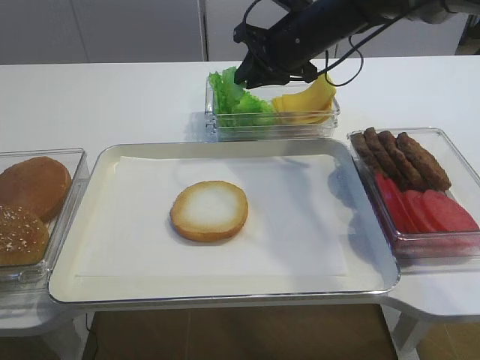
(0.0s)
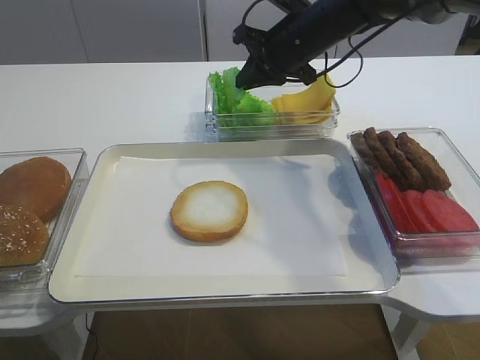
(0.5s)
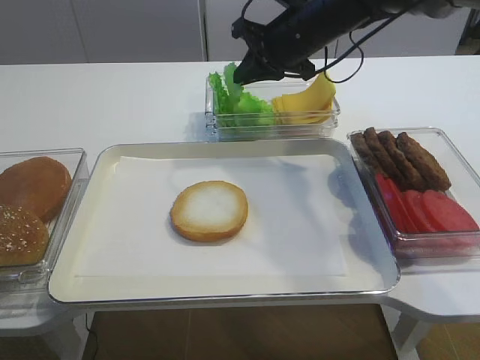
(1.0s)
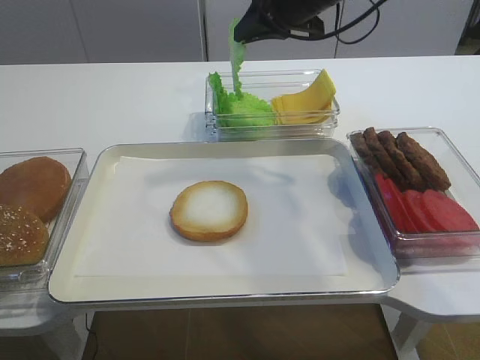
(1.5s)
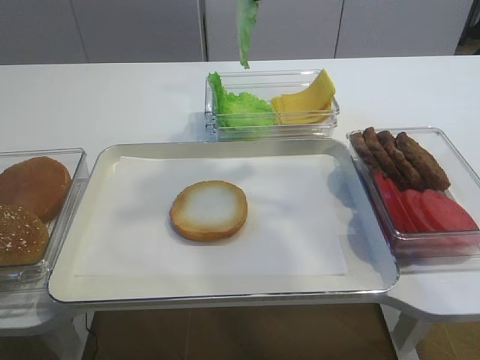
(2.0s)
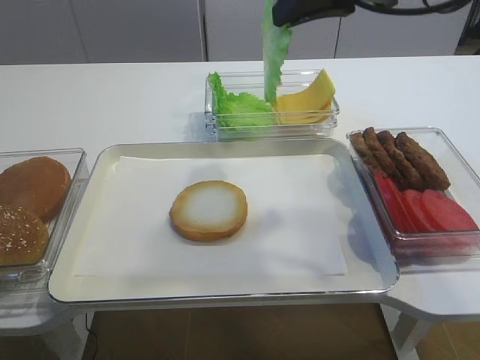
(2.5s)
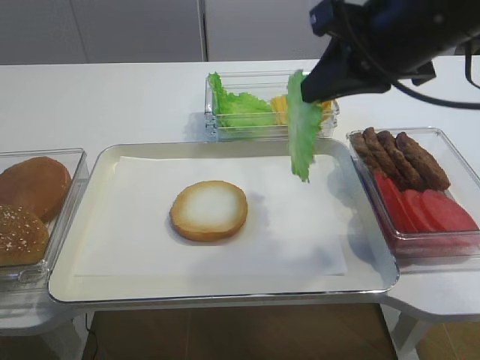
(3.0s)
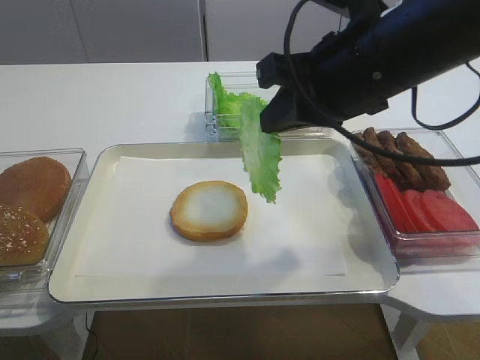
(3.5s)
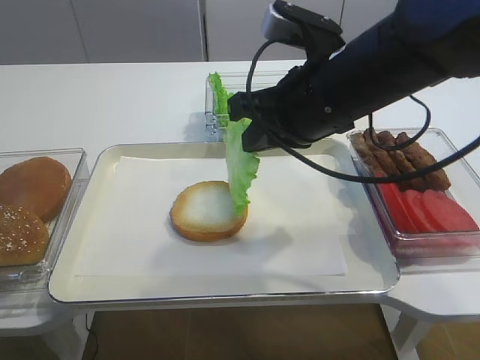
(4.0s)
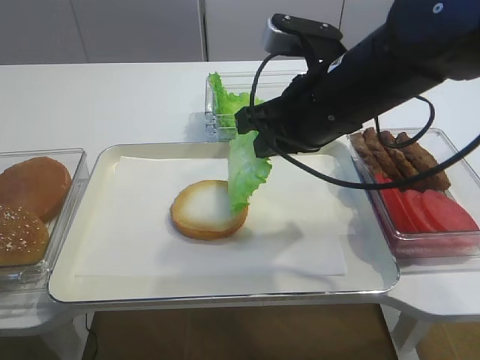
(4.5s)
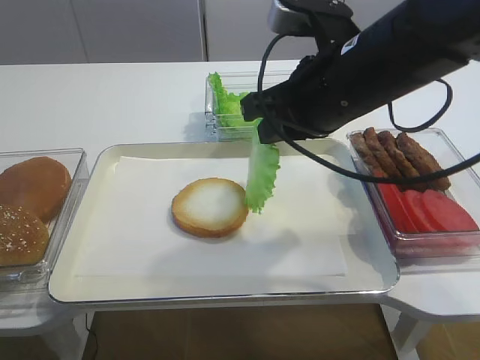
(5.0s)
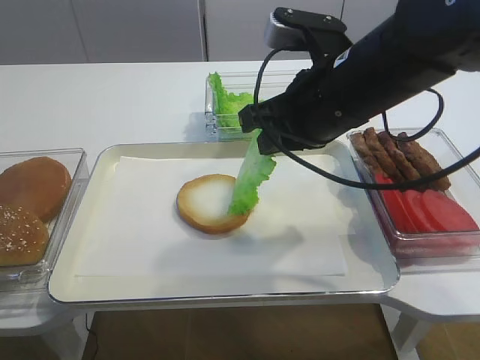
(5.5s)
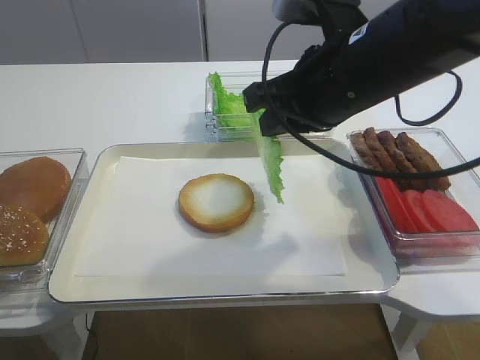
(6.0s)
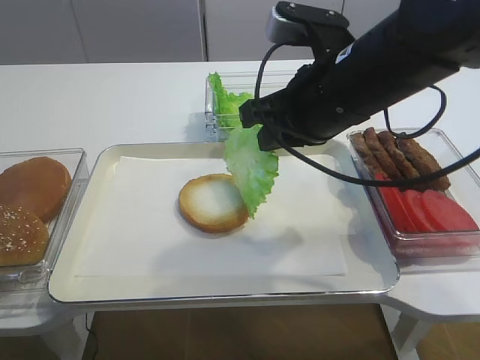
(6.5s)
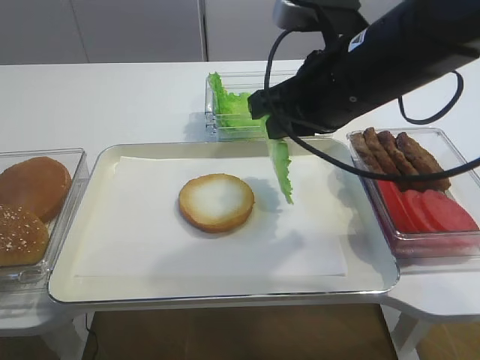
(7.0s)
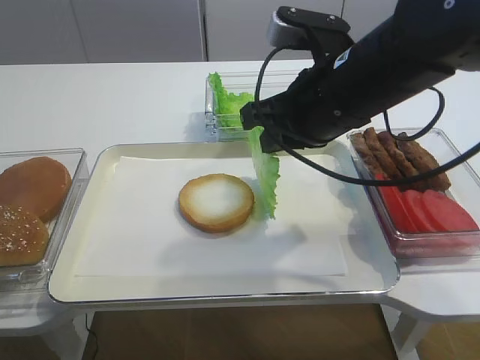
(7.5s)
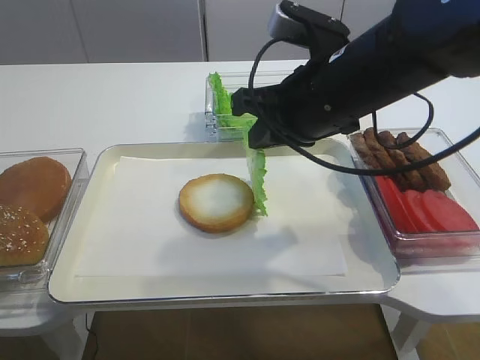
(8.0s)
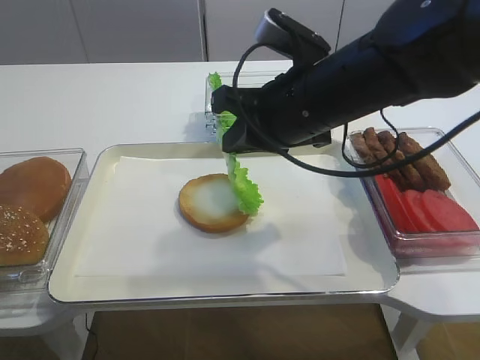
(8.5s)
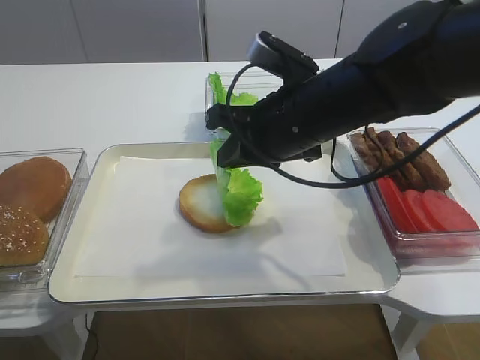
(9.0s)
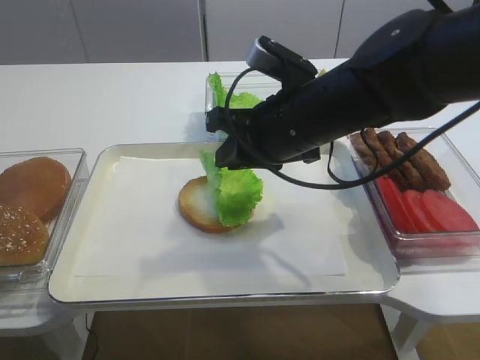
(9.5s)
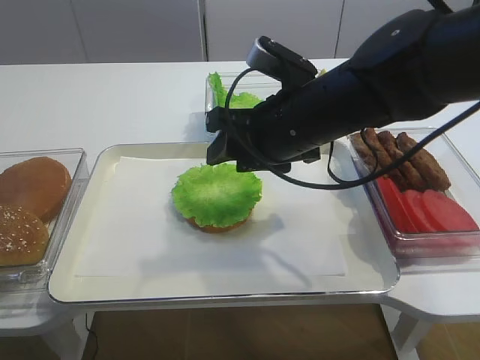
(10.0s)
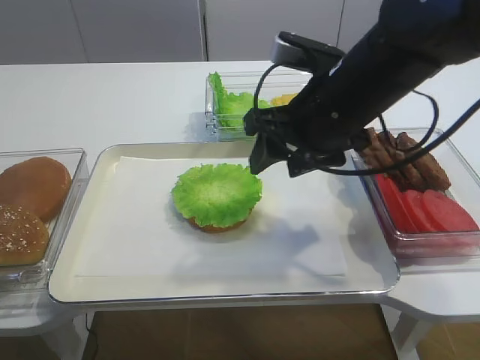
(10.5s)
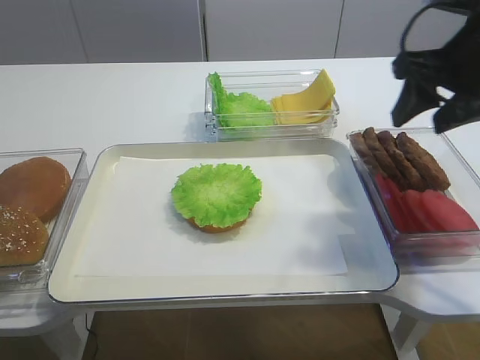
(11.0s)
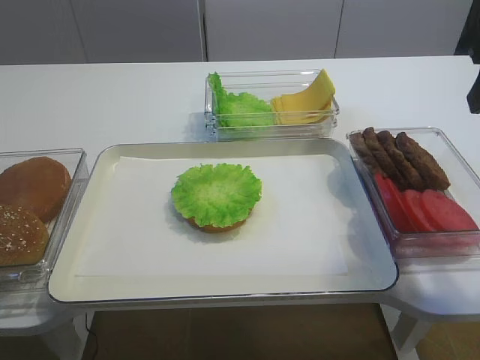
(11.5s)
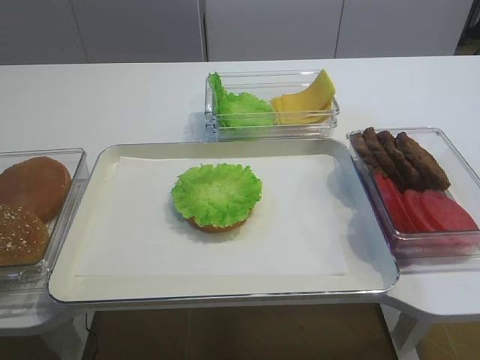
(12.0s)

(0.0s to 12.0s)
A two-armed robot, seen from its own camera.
Step, 1.5s - 10.0s: Place the lettuce leaf on the bread slice with the right gripper.
0.0s - 2.0s: The right gripper moves upward and backward, approximately 15 cm, and closes up.
2.0s - 4.0s: The right gripper heads backward and downward, covering approximately 15 cm.
4.0s - 8.0s: The grippers make only small movements.
8.0s - 10.0s: The right gripper opens.
10.0s - 12.0s: The right gripper shifts some 25 cm to the right, backward and upward.

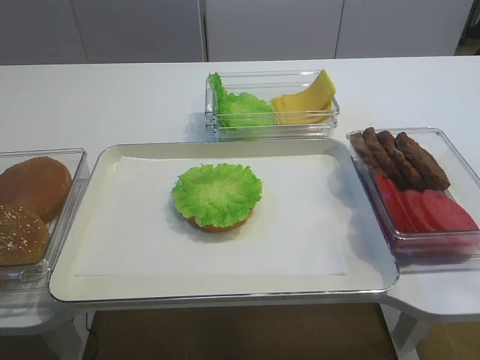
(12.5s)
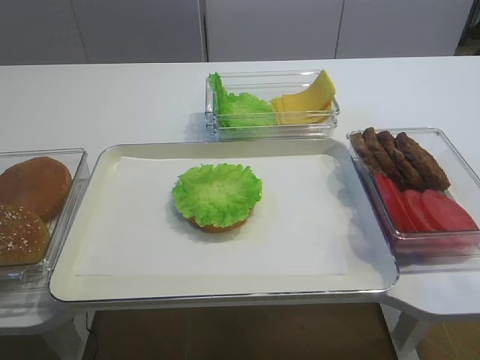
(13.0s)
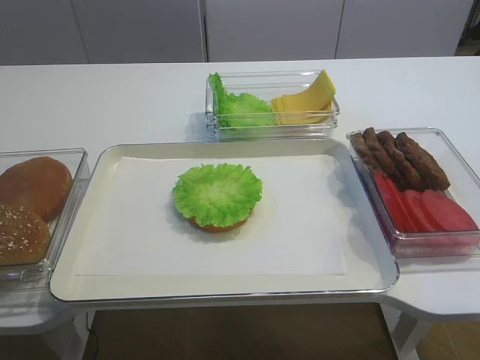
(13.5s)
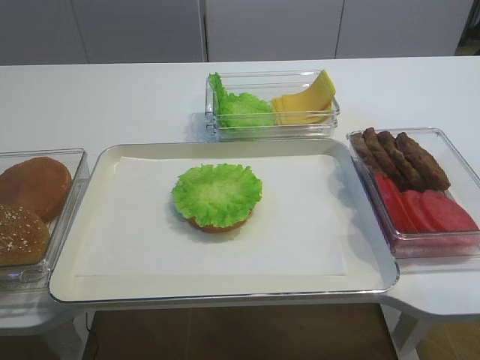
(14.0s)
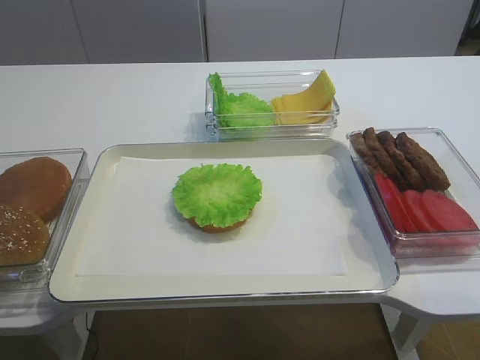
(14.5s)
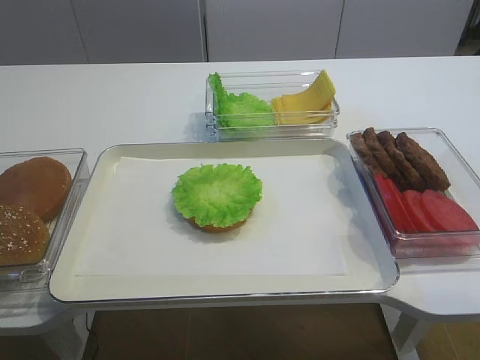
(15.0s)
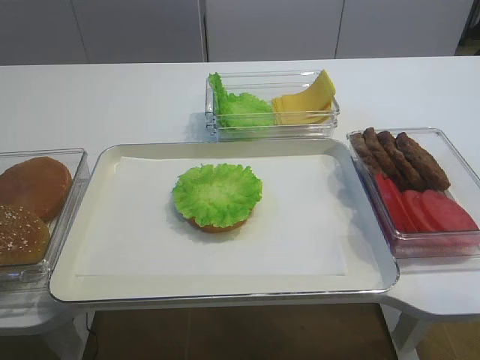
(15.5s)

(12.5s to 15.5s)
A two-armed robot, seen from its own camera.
12.5s - 14.0s: The right gripper heads downward and backward, covering about 10 cm.
14.0s - 15.5s: The two grippers keep their place.

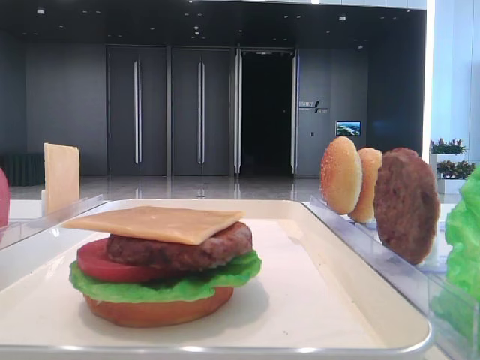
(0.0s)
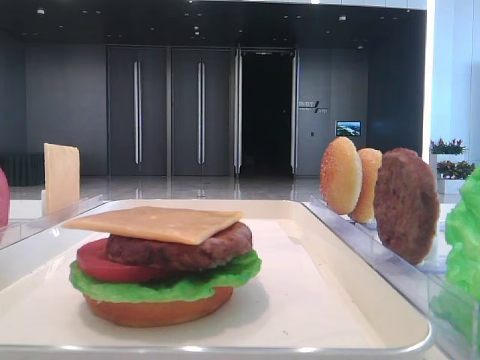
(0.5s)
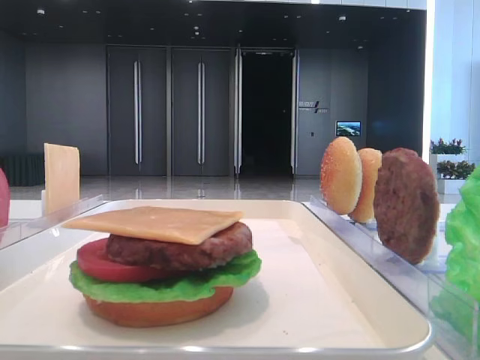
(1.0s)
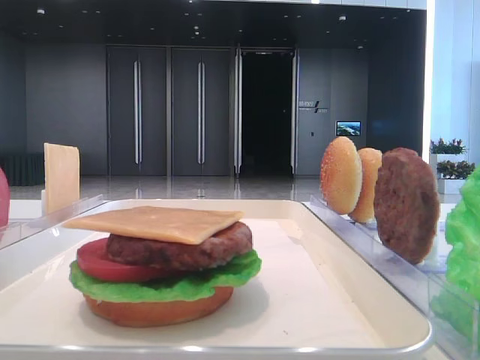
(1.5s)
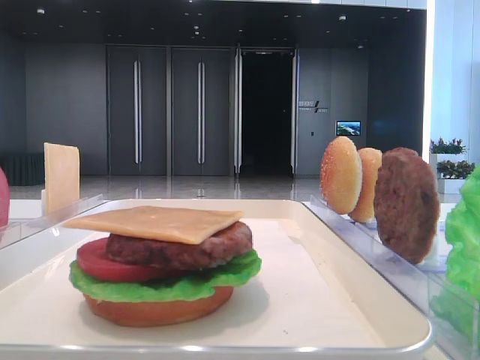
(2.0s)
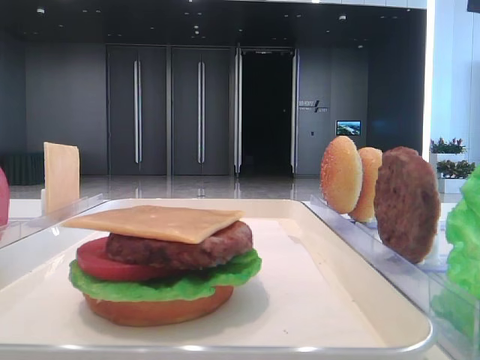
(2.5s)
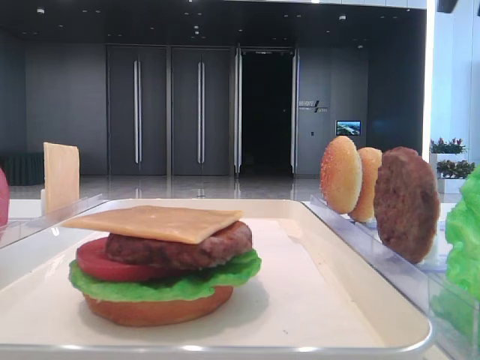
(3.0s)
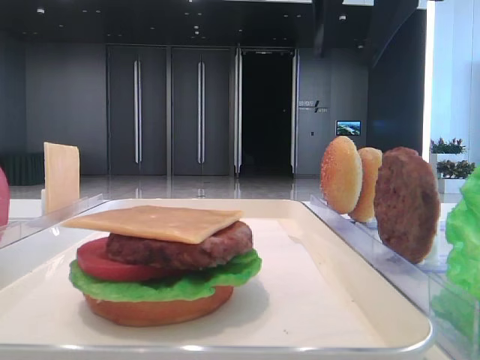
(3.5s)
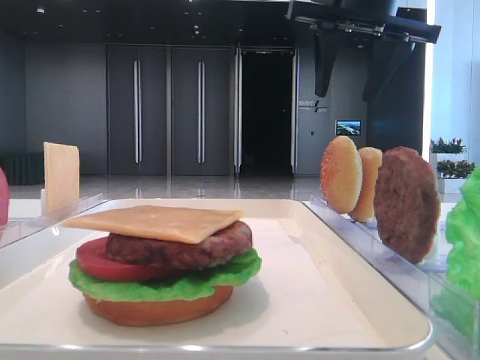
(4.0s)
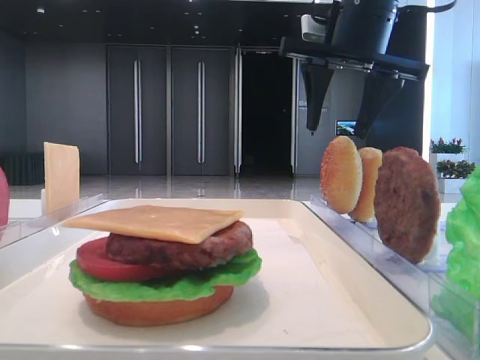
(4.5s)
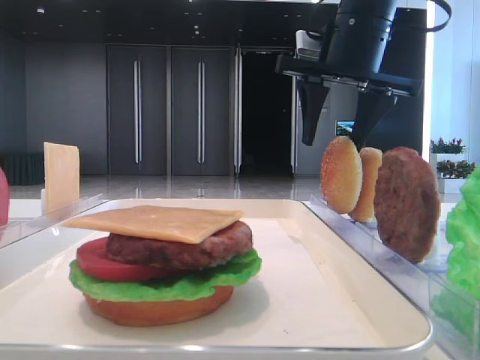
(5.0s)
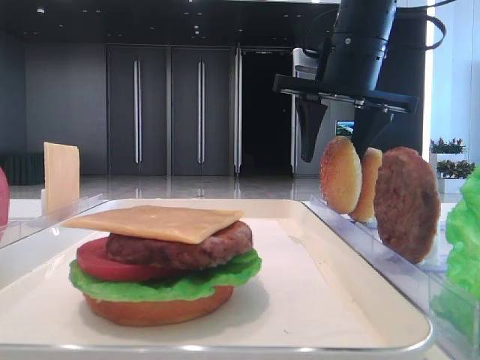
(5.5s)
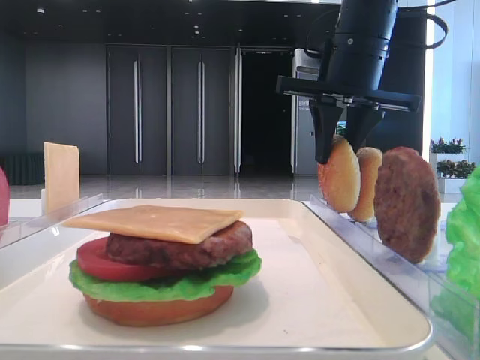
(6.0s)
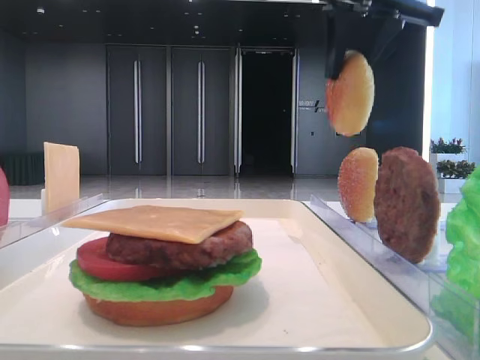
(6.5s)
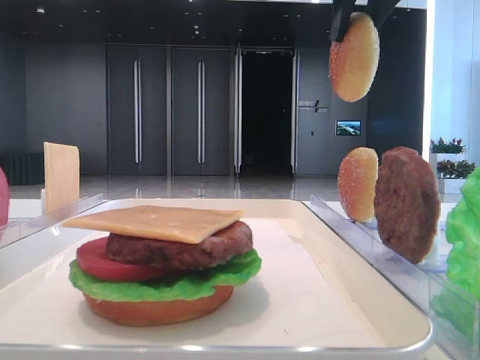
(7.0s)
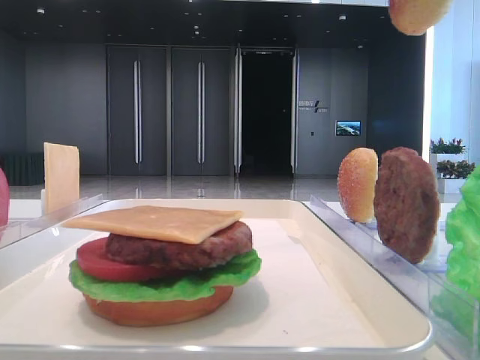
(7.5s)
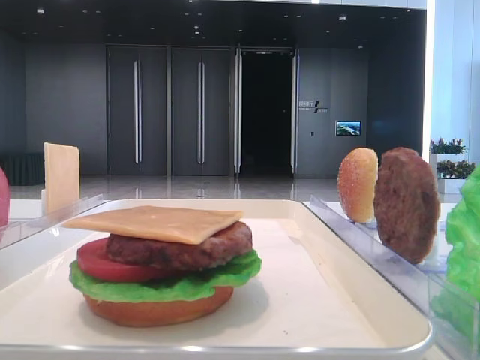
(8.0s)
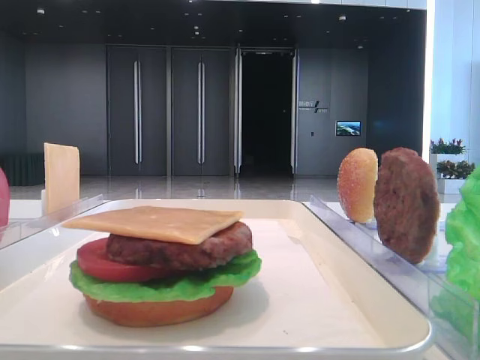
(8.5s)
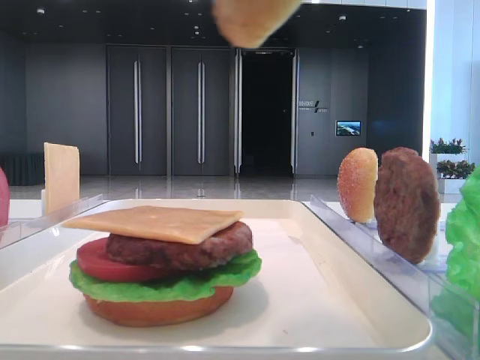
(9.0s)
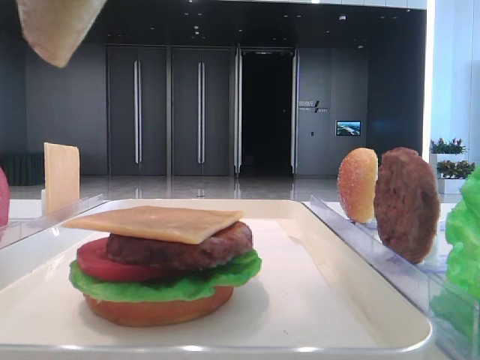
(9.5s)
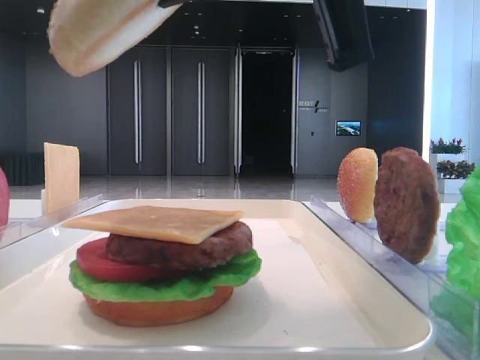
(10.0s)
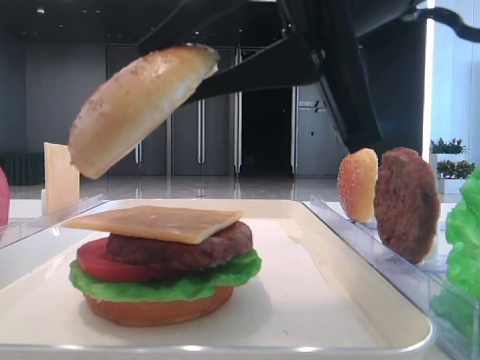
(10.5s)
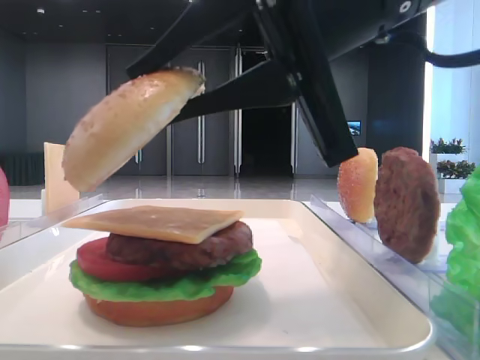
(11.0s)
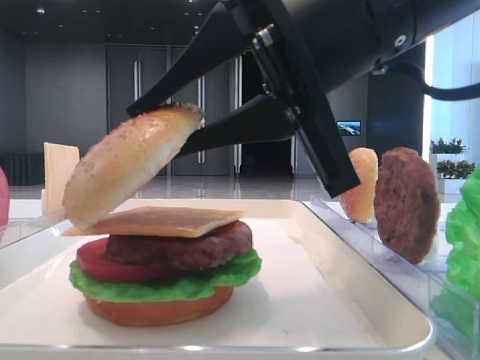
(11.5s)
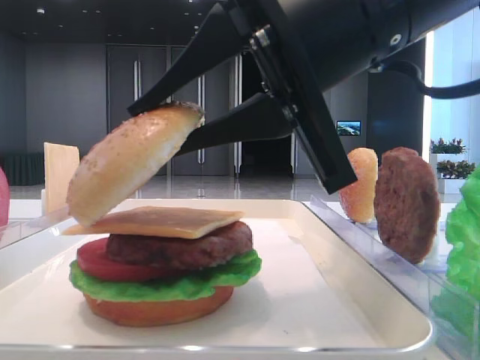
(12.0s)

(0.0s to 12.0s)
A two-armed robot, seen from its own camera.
Step, 0.0s - 5.5s: Pick up the top bread slice with the right hand.
2.0s - 4.0s: The right gripper shifts roughly 25 cm forward and to the left, and opens its fingers.
4.0s - 6.0s: The right gripper shifts roughly 5 cm downward, and closes its fingers. The left gripper closes up.
6.0s - 8.0s: The right gripper travels backward and upward by approximately 30 cm.
8.0s - 10.0s: The right gripper goes some 15 cm downward and to the left.
10.0s - 12.0s: The right gripper travels downward by roughly 5 cm.
